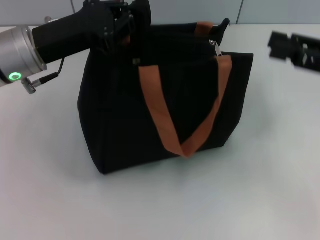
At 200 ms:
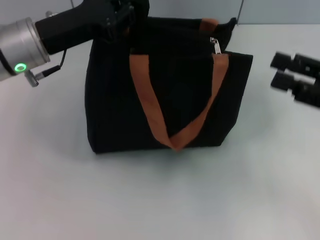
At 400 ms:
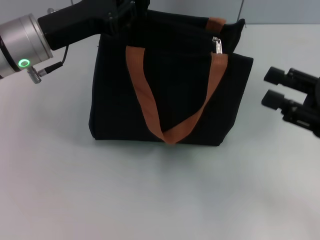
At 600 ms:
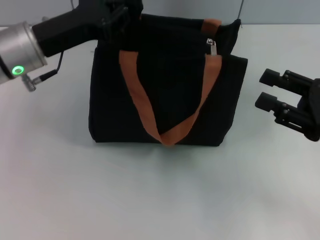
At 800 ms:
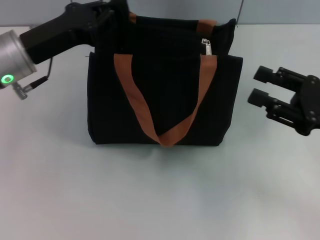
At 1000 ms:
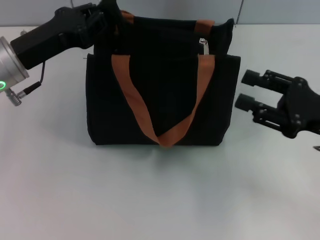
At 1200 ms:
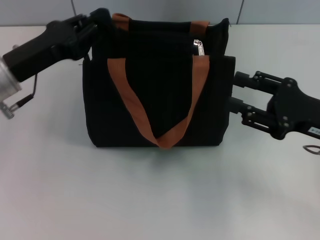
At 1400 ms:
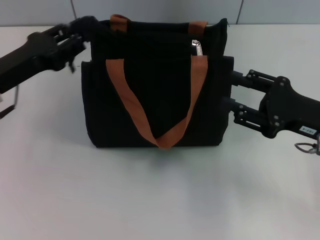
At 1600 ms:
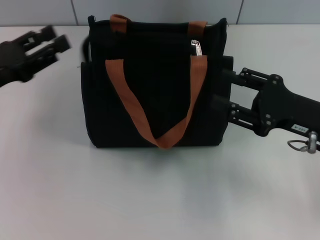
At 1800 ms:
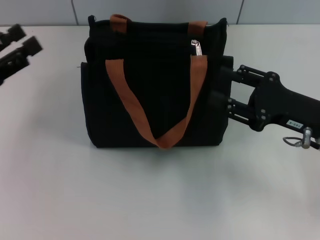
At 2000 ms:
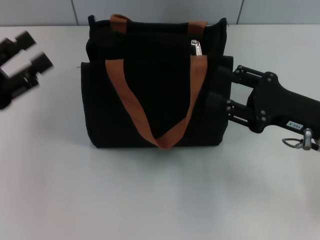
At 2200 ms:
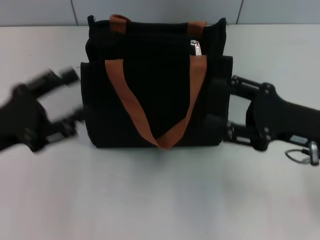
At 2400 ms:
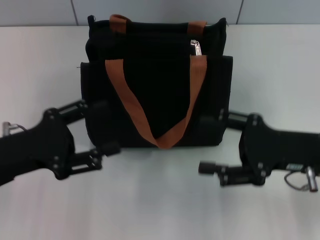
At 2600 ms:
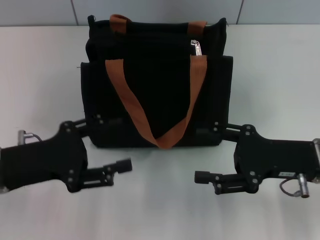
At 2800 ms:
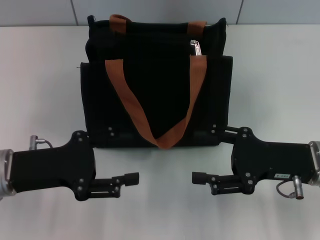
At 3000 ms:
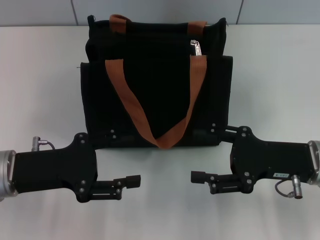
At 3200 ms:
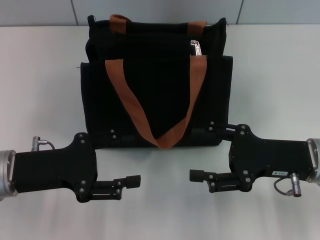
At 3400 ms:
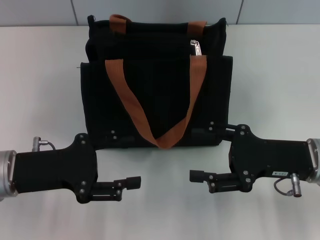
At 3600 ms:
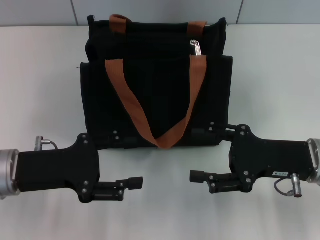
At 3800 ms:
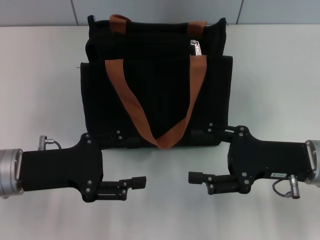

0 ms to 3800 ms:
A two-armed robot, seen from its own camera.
Step, 0 ms to 1600 ms: Grab the zipper with your left hand.
0 ms to 1200 ms: The right gripper shifts roughly 10 cm downward; the left gripper shifts by some 5 cm.
1200 ms to 2600 ms: The left gripper is displaced backward by roughly 10 cm, and opens its fingers.
2600 ms to 3800 ms: The grippers move only a little.
